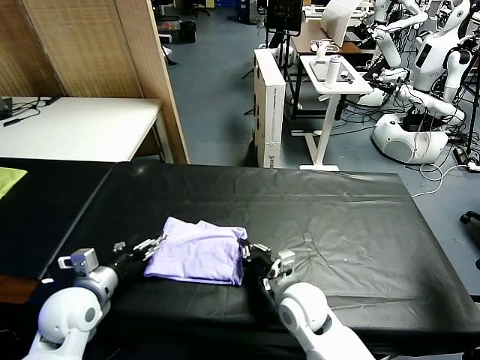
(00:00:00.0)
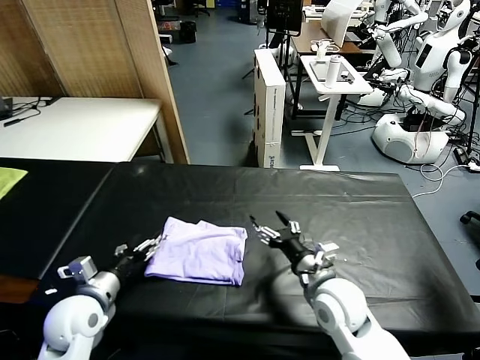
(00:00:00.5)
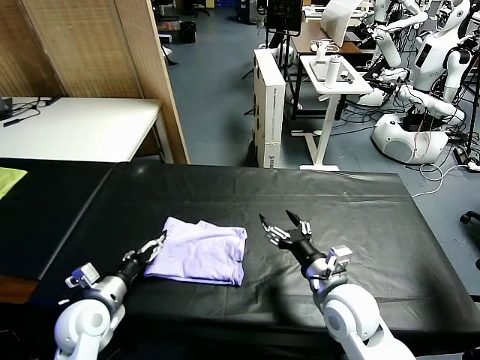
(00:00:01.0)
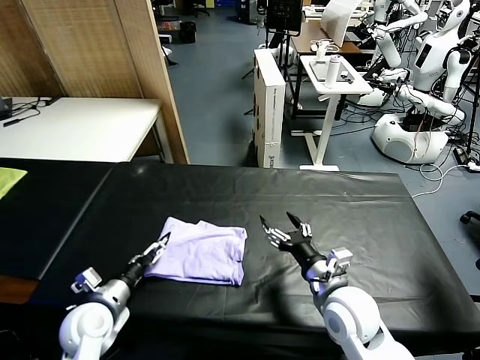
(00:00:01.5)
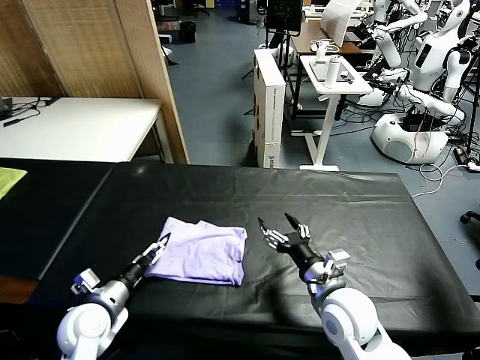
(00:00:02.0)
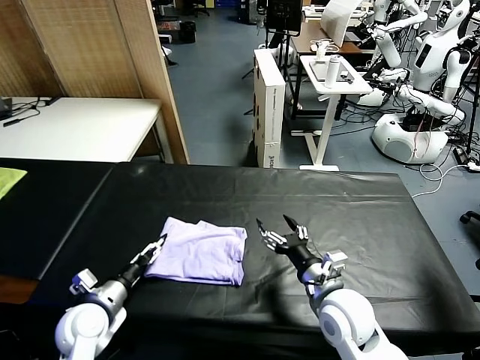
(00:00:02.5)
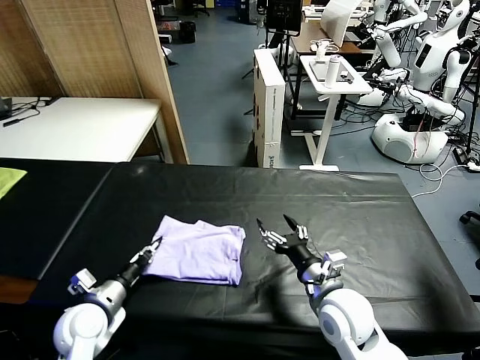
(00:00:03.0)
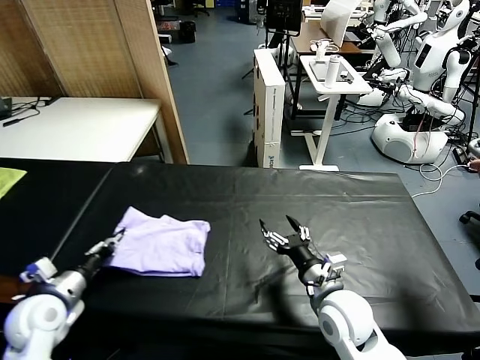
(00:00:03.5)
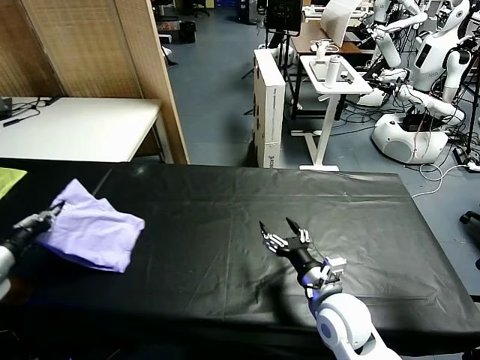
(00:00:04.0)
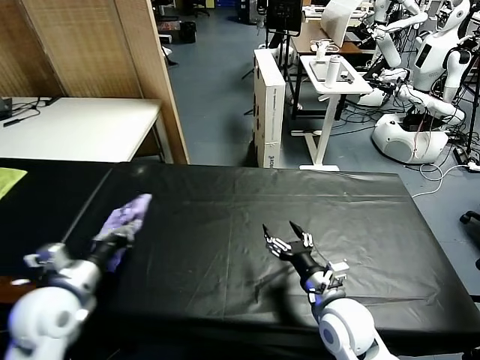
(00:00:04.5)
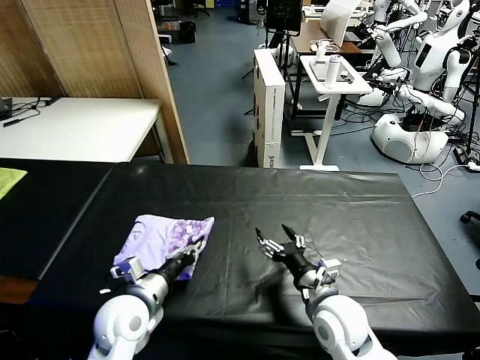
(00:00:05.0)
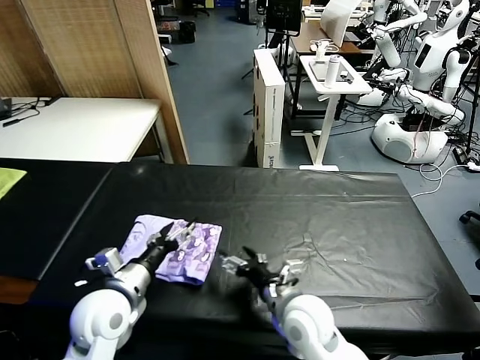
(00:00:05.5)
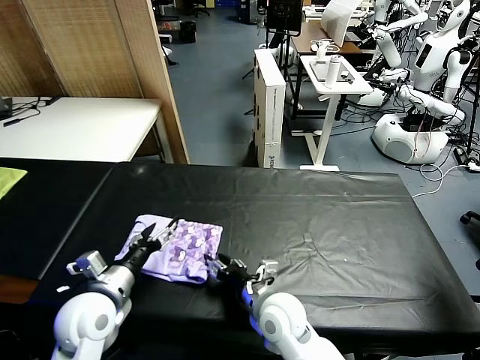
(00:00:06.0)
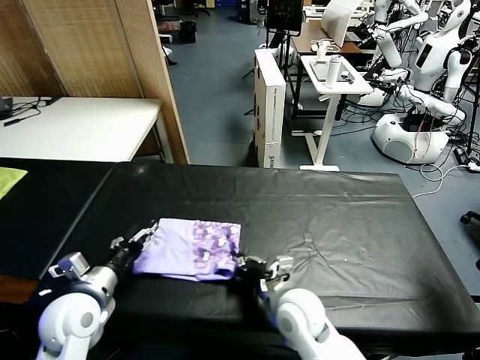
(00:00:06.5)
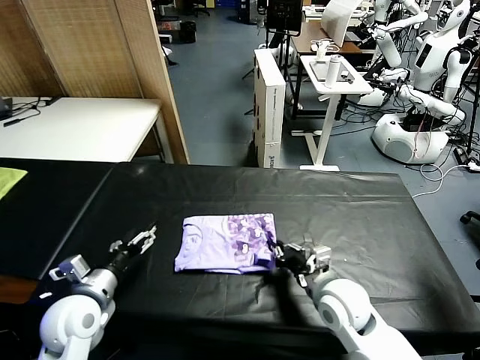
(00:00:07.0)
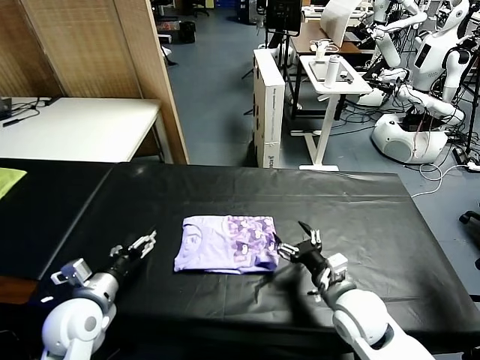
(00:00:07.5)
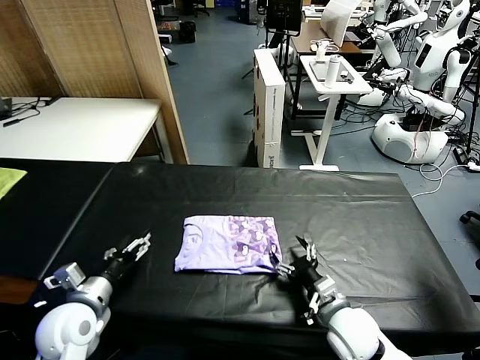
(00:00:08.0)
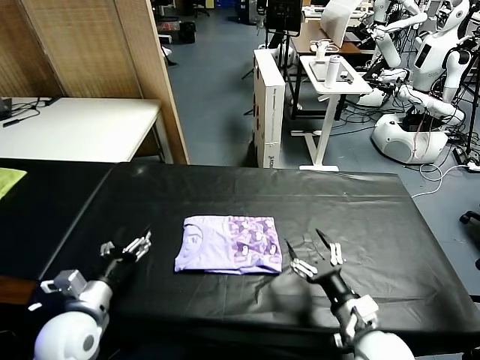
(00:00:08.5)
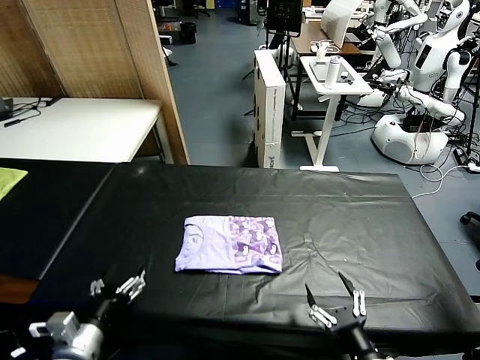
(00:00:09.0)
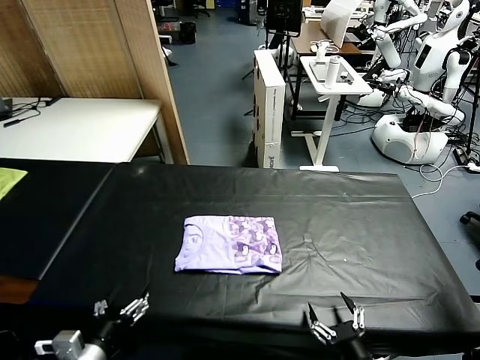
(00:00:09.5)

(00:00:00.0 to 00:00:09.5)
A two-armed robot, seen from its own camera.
Task of the whole recording: fold and organize the clothes.
Step, 00:00:00.0 - 00:00:05.0: Flip the folded clothes over with left gripper.
Step, 00:00:05.5 - 00:00:07.0: Drag the clothes to the center of the table.
00:00:00.0 - 00:00:02.0: The left gripper travels downward by about 5 cm. Meanwhile the right gripper travels to the right and upward by about 10 cm, and opens its fingers.
00:00:02.0 - 00:00:04.0: The left gripper goes approximately 20 cm upward and to the left, and closes its fingers.
00:00:04.0 - 00:00:05.5: The right gripper shifts approximately 5 cm to the left, while the left gripper is displaced to the right by roughly 25 cm, and opens.
00:00:05.5 - 00:00:07.5: The left gripper travels to the left by some 5 cm. Meanwhile the right gripper travels to the right by approximately 10 cm, and closes and opens again.
00:00:07.5 - 00:00:09.5: Both grippers travel together backward, about 15 cm.
